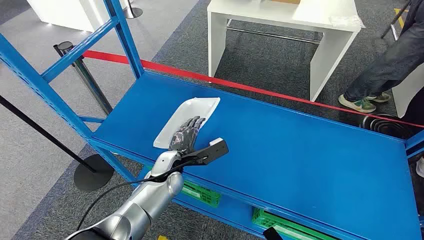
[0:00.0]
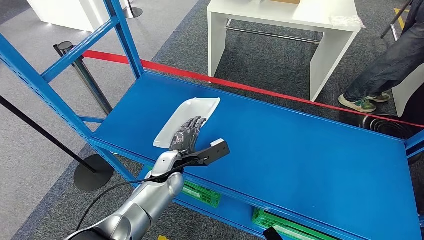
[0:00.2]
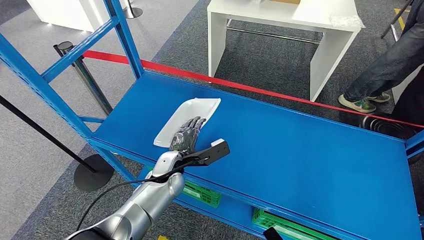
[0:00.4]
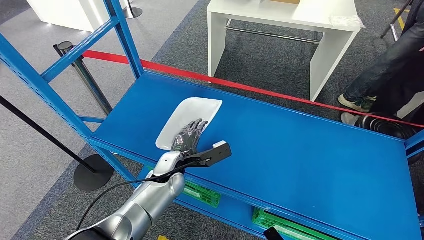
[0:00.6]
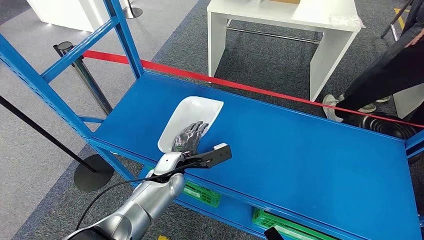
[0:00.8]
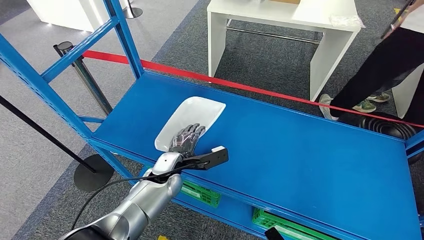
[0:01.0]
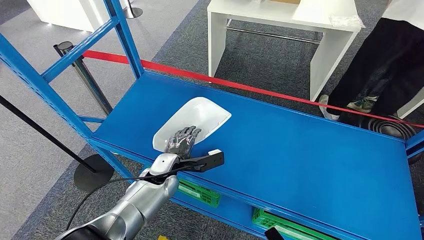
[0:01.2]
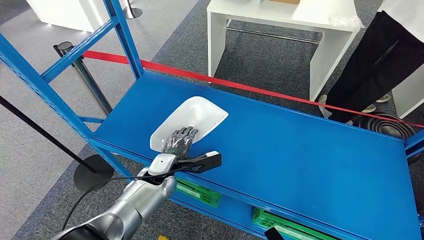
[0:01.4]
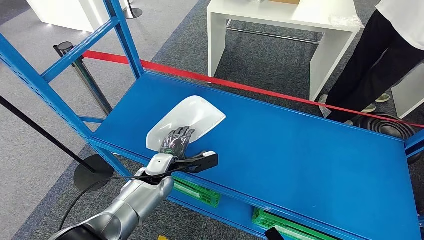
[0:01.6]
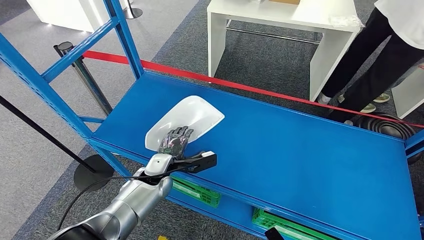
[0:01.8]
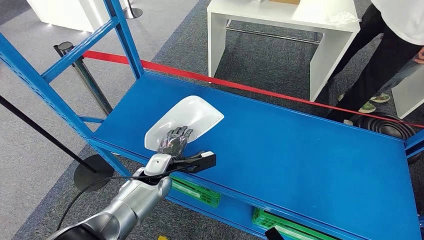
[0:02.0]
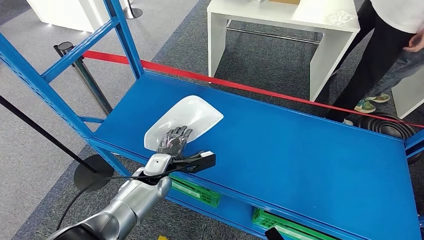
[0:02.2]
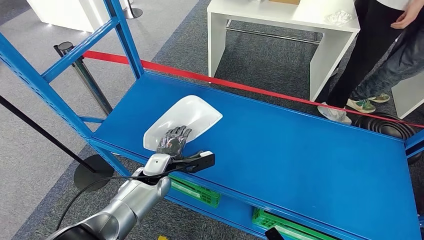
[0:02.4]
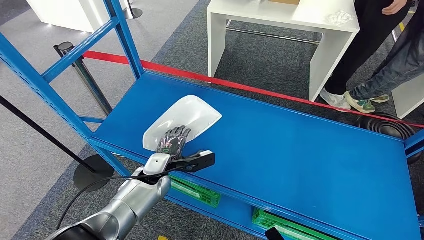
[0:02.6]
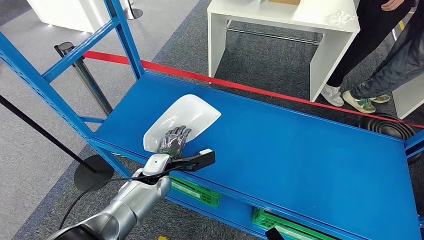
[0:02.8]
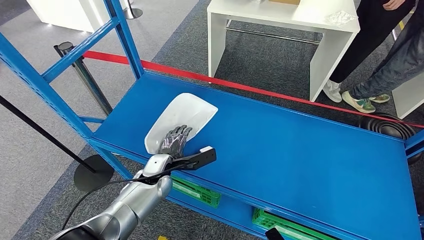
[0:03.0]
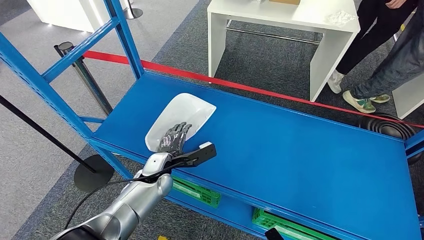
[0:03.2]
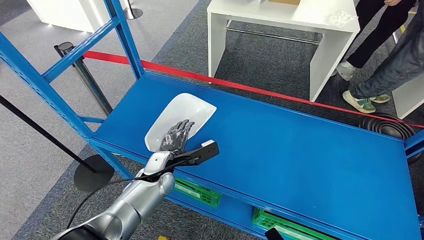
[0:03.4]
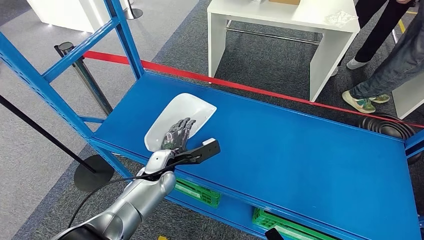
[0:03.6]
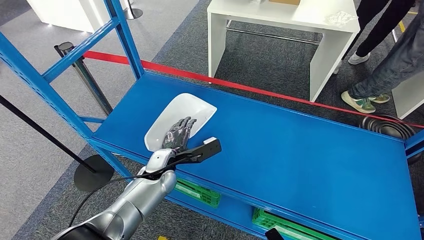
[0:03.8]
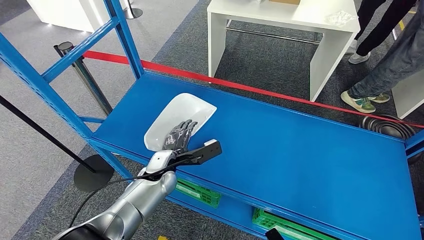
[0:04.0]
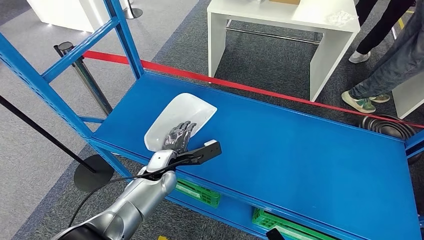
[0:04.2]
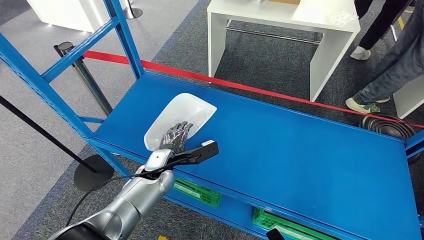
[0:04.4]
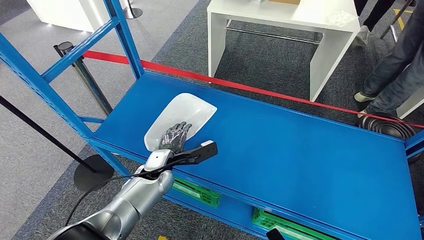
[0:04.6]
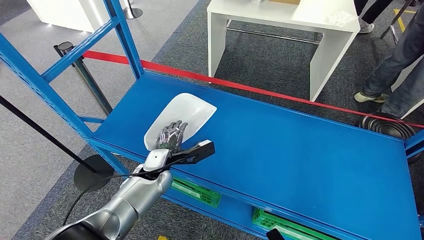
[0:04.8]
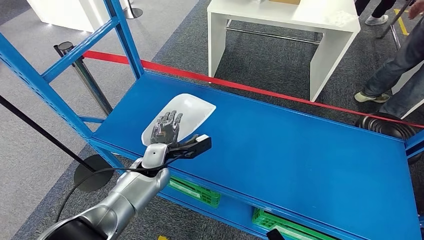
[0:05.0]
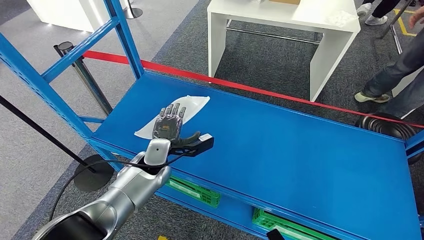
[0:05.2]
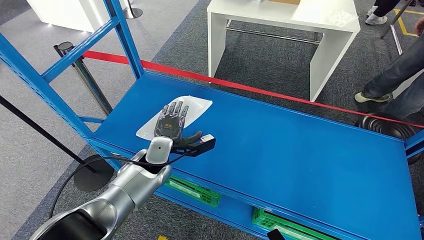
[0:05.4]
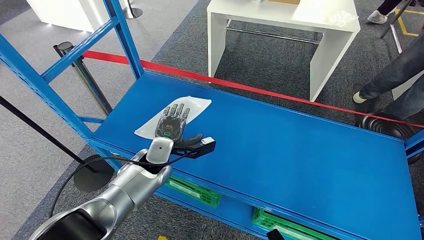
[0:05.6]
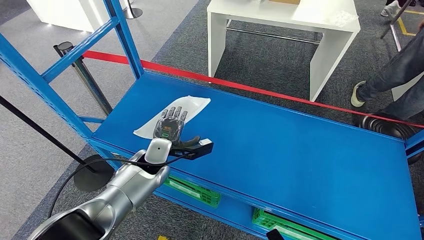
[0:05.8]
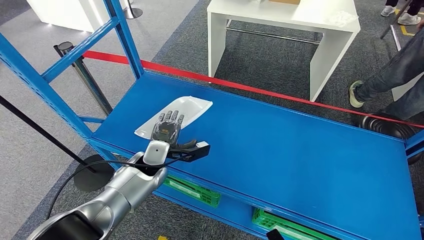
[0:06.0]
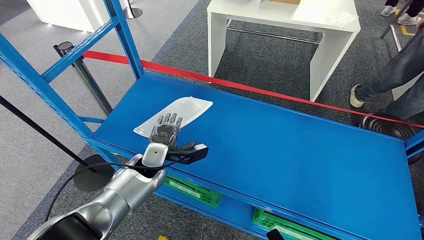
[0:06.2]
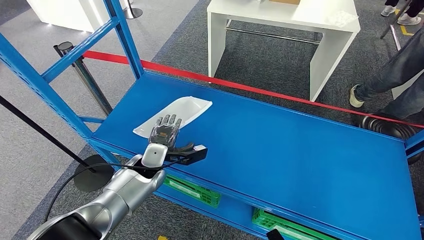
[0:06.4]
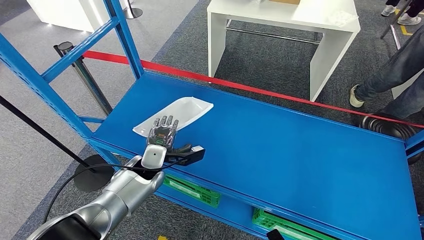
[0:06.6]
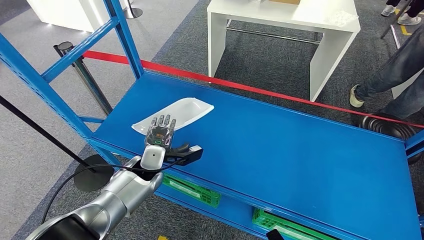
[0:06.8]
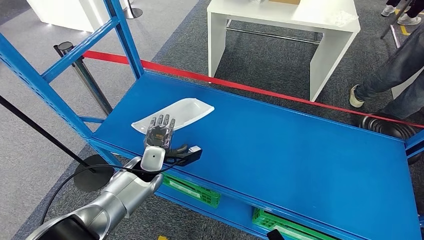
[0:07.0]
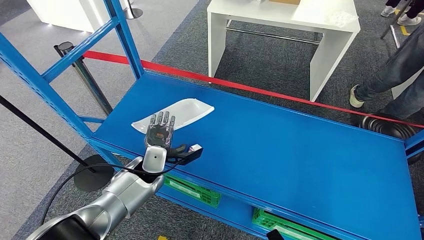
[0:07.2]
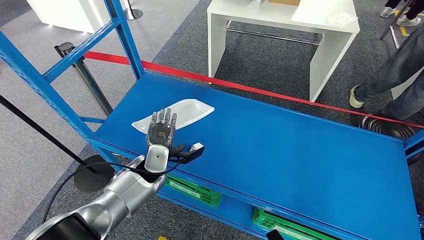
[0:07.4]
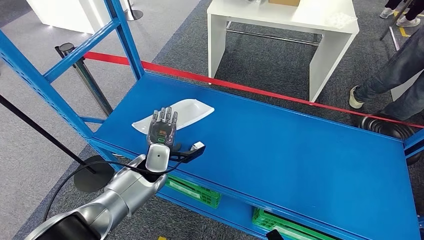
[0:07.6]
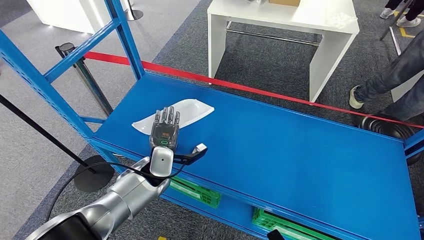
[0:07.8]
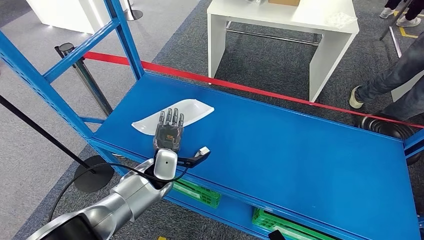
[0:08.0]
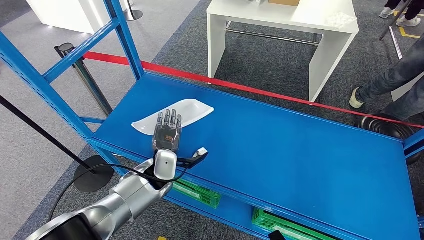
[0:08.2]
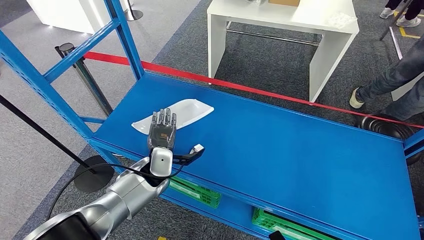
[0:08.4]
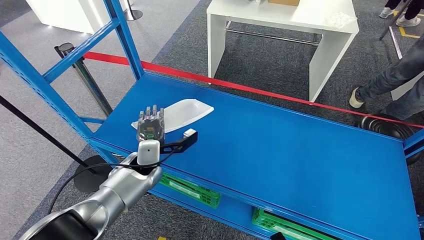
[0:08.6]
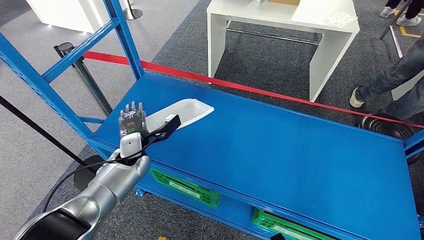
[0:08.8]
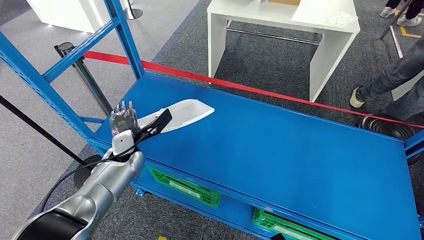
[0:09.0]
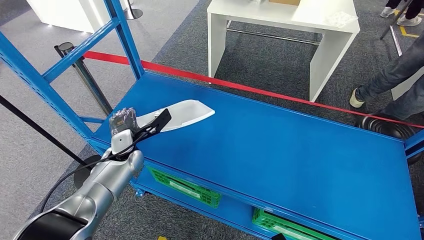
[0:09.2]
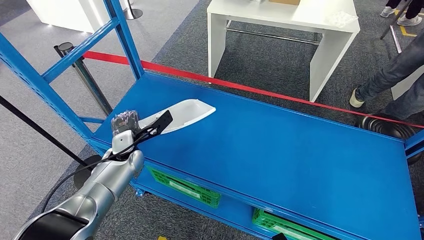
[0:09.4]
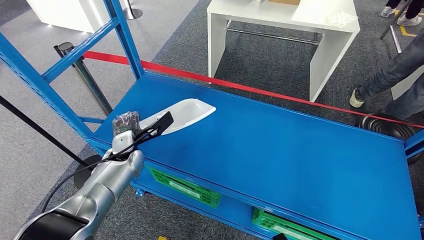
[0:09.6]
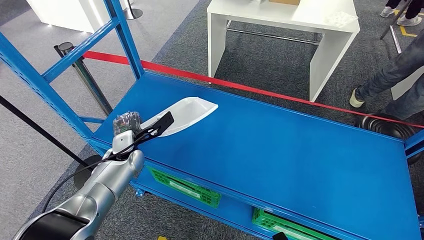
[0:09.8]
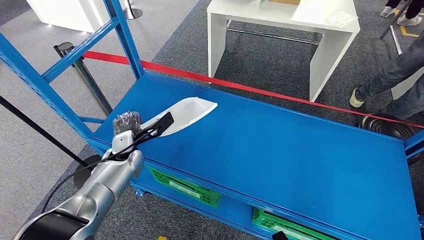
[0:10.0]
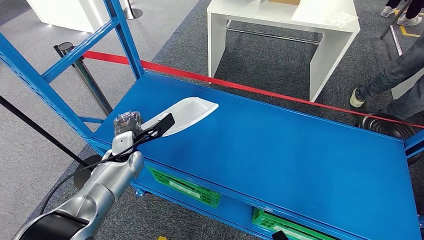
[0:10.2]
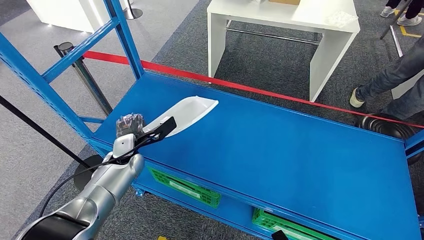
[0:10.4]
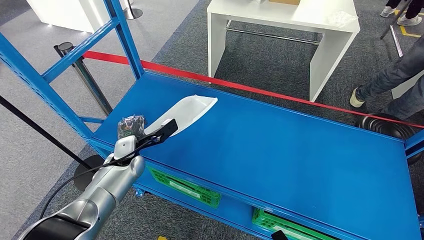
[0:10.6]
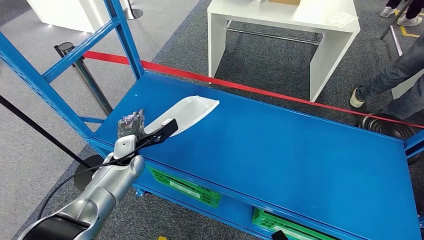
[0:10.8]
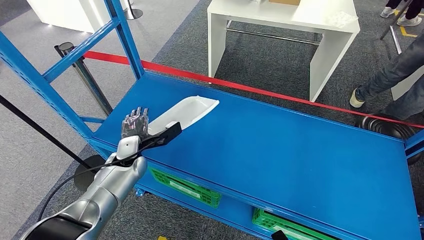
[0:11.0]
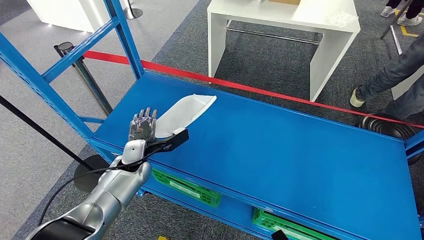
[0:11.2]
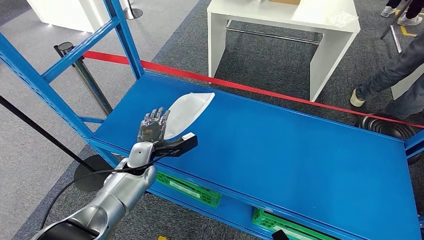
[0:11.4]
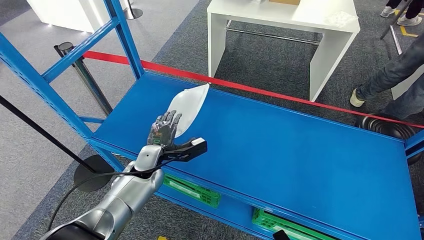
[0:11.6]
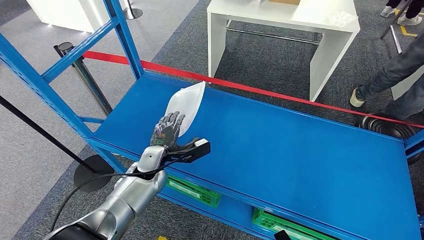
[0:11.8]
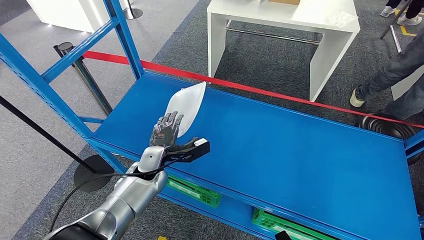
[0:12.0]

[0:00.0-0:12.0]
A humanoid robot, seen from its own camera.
0:01.6 to 0:04.4: The hands stay close to where they were, moving slightly.
0:04.4 to 0:06.0: The left hand changes place by some 5 cm.
0:06.0 to 0:07.6: The hands stay close to where they were, moving slightly.
0:07.6 to 0:09.0: The left hand moves roughly 5 cm.
0:09.0 to 0:10.4: The hands stay close to where they were, moving slightly.
0:10.4 to 0:12.0: The left hand goes approximately 5 cm to the right.

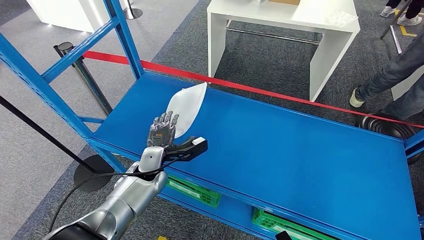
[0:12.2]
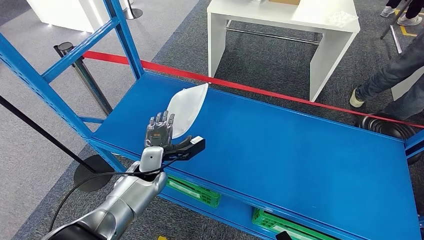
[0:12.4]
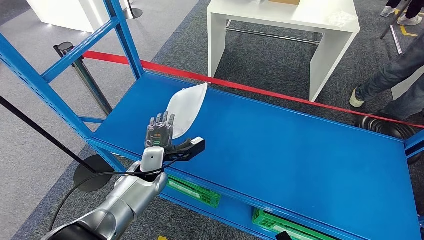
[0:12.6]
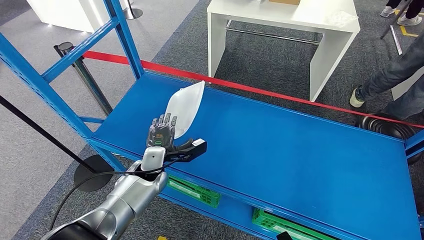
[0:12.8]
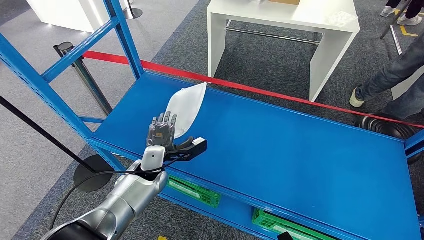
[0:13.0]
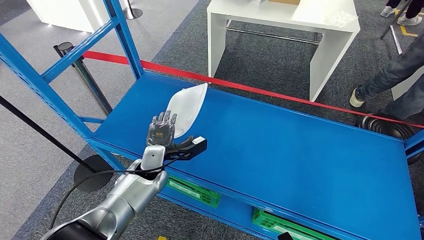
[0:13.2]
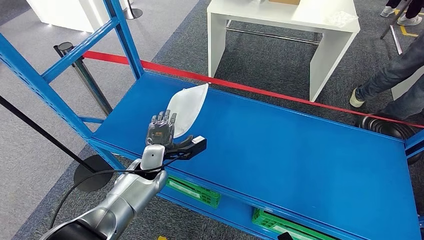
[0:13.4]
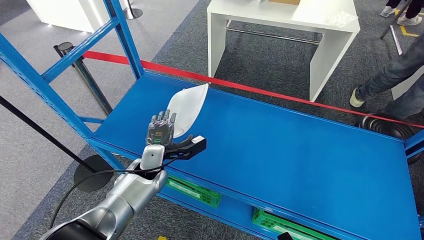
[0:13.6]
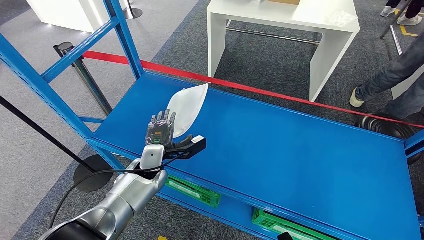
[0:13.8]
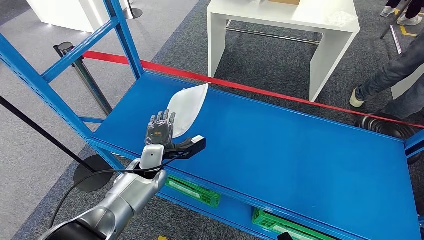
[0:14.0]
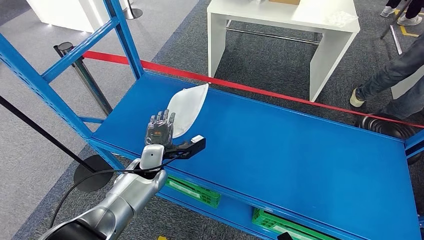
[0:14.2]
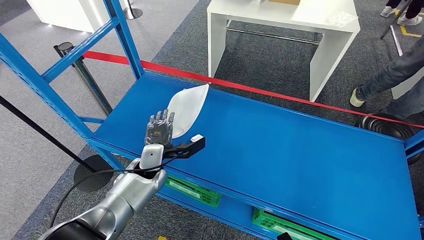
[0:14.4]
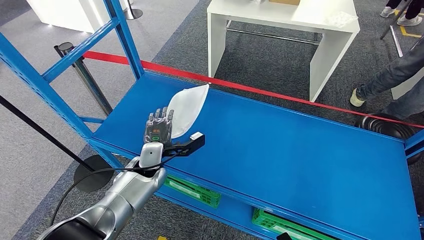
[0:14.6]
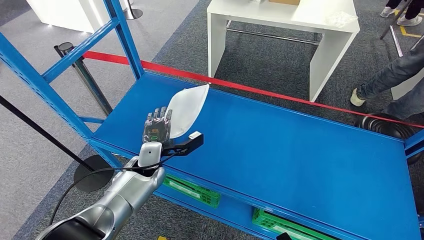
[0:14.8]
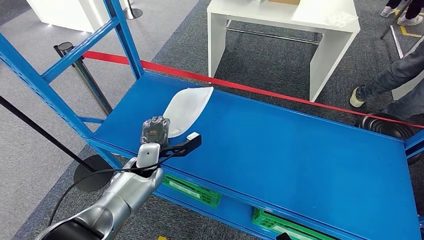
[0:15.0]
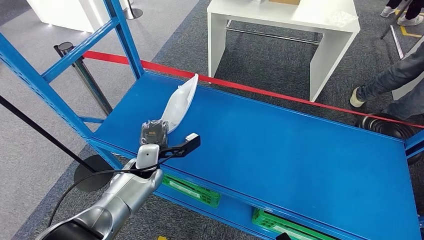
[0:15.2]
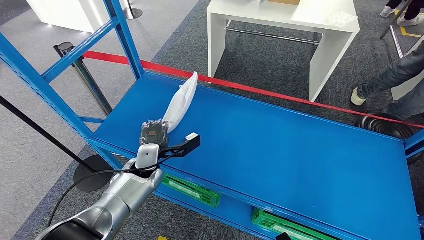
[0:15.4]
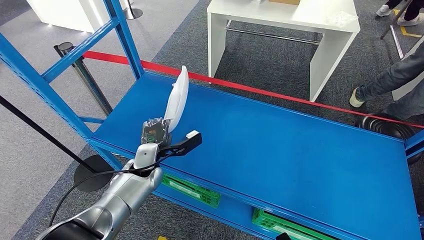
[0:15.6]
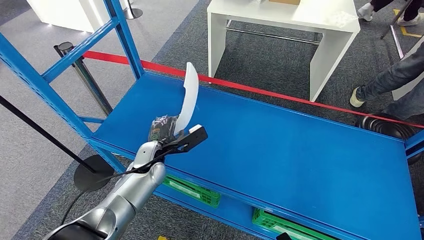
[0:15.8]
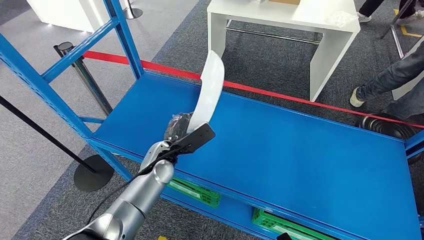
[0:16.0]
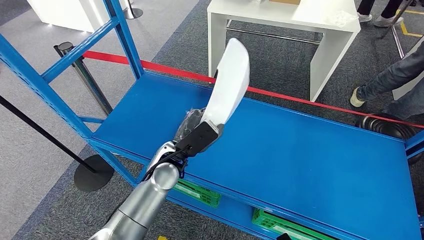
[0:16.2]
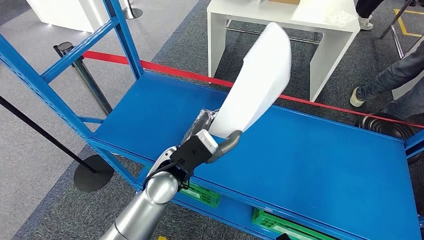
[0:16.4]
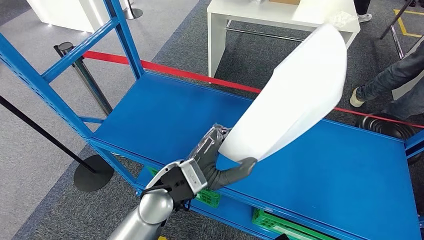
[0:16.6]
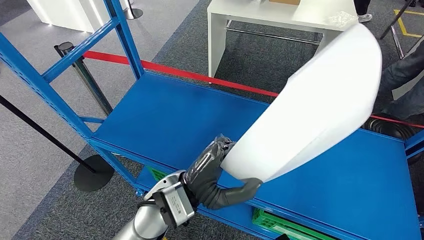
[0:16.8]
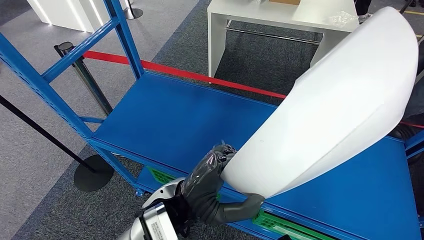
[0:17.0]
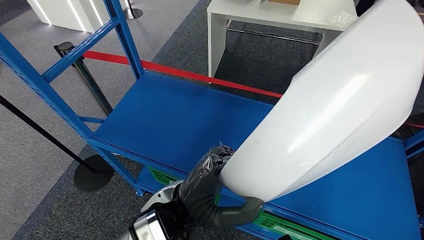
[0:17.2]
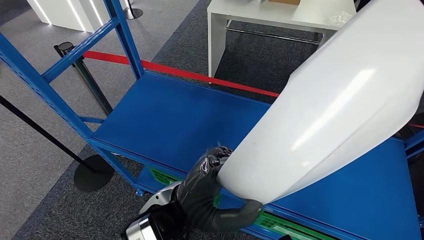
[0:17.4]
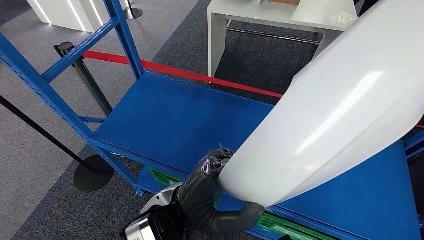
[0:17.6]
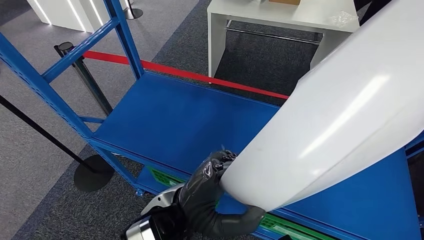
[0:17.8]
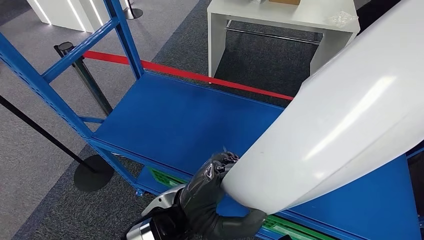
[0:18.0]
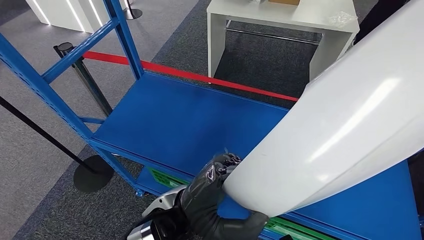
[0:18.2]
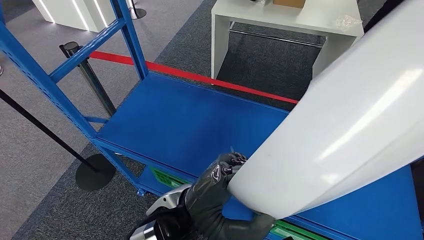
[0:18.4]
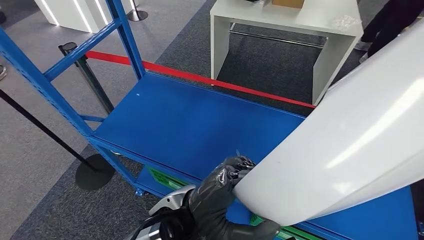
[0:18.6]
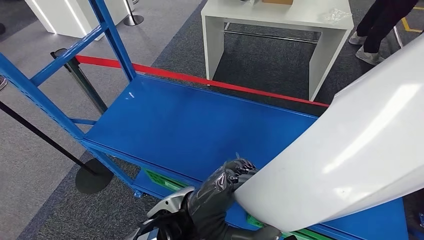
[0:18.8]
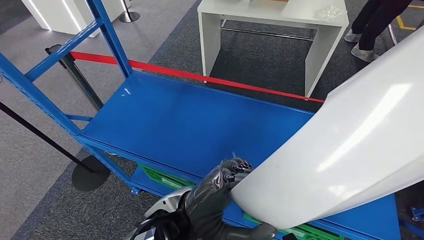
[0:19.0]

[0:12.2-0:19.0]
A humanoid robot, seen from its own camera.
Step, 0:12.2 to 0:17.0: Pick up the large material from the shelf.
0:12.2 to 0:13.6: There are only small adjustments of the hands.
0:13.6 to 0:15.0: The two hands keep their place.
0:15.0 to 0:16.2: The left hand heads to the right and upward, covering about 10 cm.
